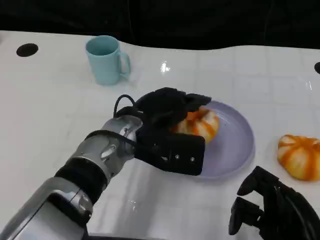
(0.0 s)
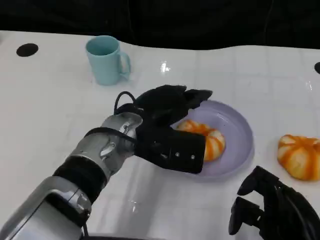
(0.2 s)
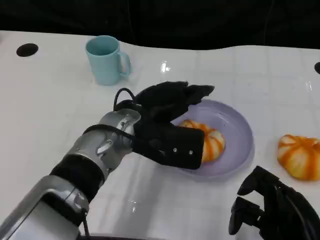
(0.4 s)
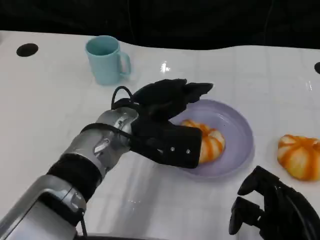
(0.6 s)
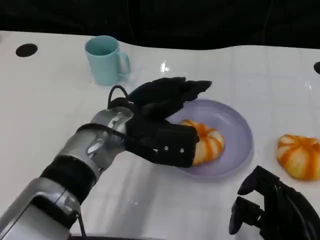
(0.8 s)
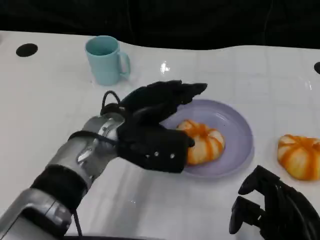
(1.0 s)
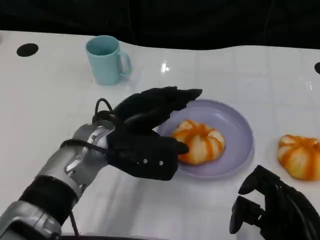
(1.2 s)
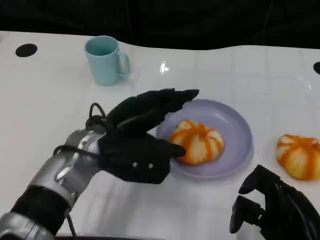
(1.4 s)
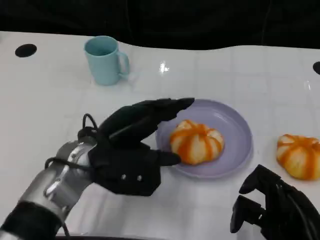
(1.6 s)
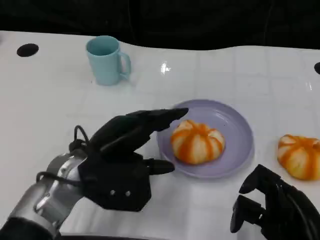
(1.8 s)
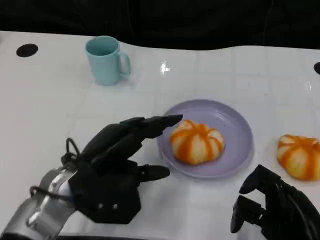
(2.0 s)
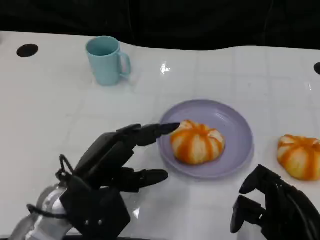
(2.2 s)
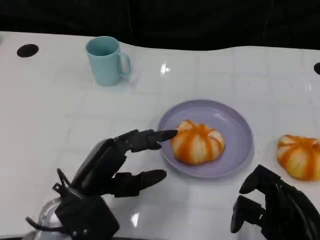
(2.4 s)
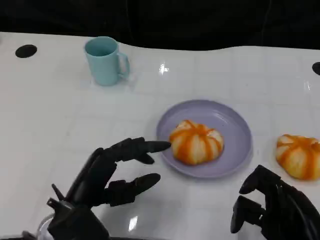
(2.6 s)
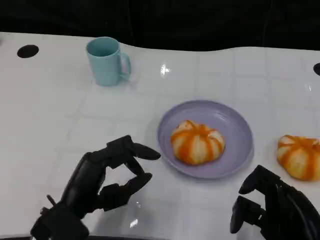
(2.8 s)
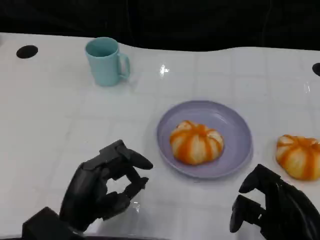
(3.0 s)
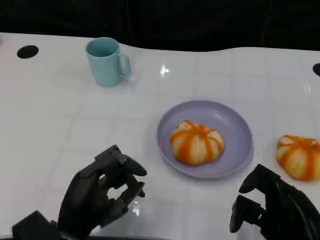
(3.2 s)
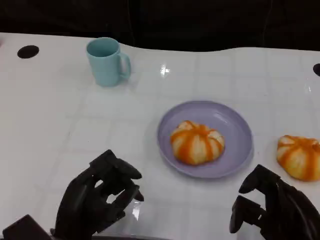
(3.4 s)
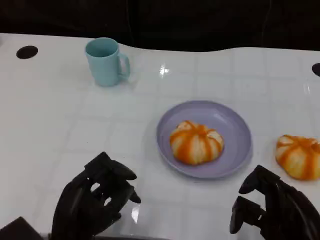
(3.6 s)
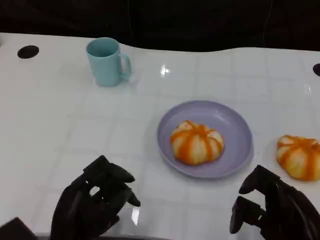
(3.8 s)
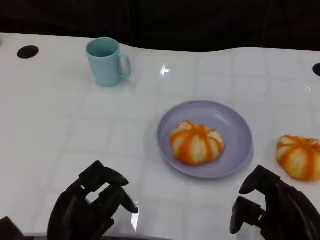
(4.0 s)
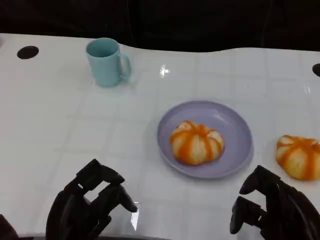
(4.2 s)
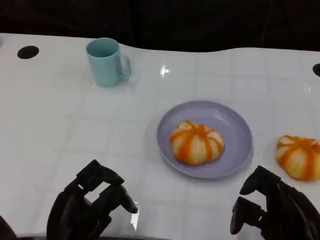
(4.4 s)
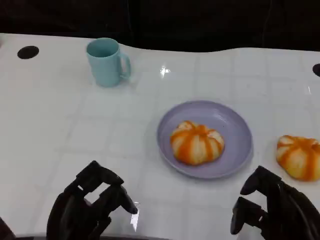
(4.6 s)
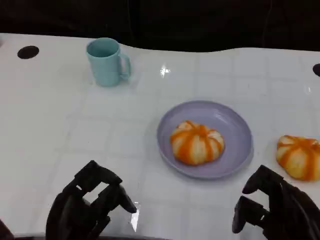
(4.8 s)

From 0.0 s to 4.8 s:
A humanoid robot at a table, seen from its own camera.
Task of the whole recording: Grasp the bread from the table and place it into the plate.
From 0.0 s to 1.6 s: The left hand heads to the left, covering roughly 5 cm.
From 1.6 s to 3.2 s: The left hand heads backward and downward, covering roughly 10 cm.

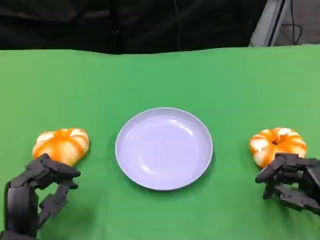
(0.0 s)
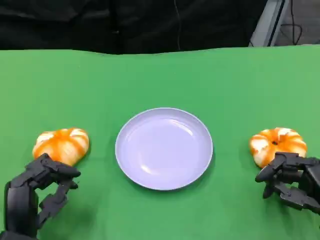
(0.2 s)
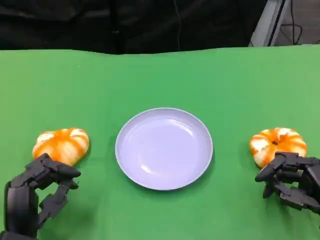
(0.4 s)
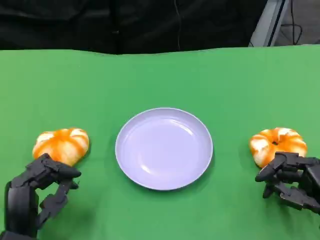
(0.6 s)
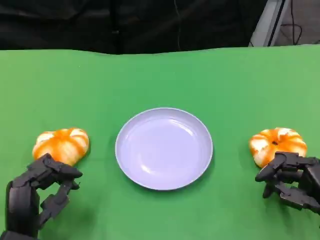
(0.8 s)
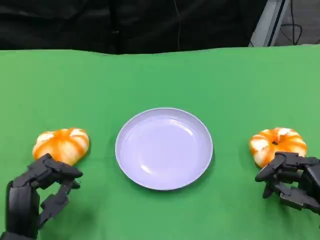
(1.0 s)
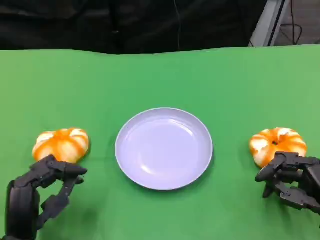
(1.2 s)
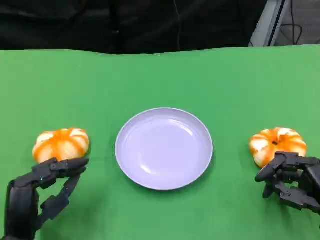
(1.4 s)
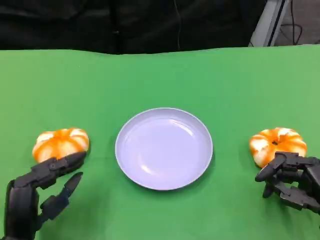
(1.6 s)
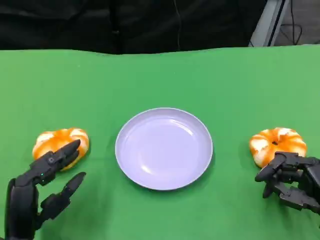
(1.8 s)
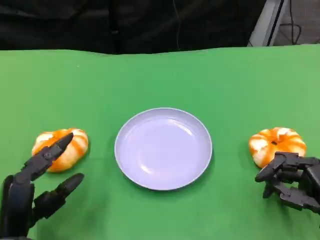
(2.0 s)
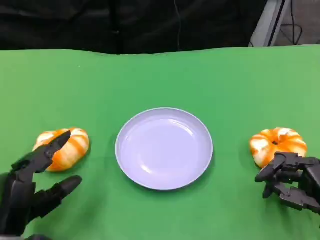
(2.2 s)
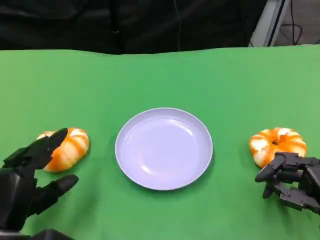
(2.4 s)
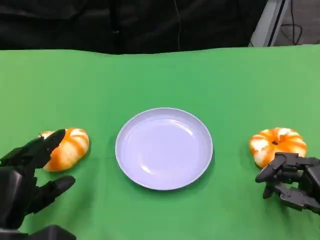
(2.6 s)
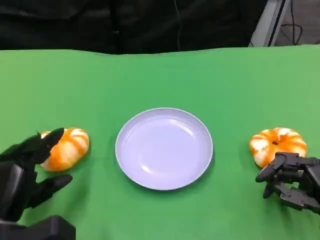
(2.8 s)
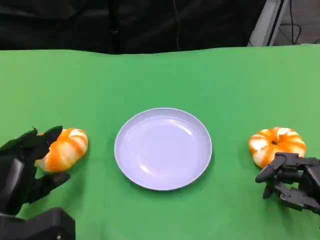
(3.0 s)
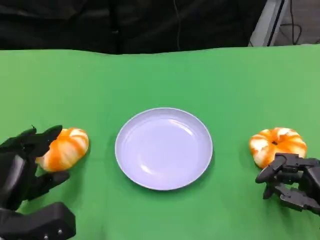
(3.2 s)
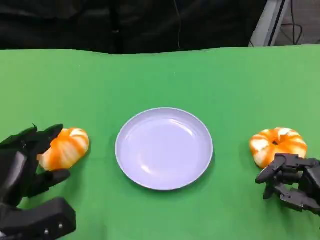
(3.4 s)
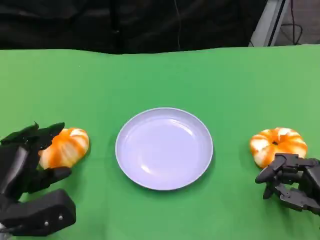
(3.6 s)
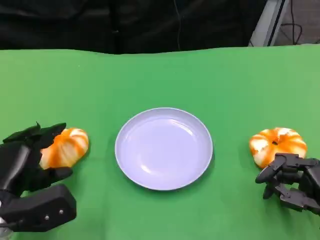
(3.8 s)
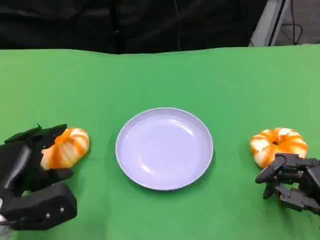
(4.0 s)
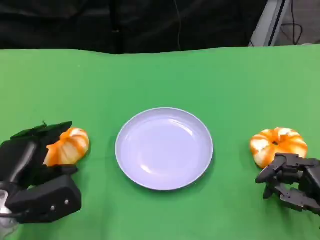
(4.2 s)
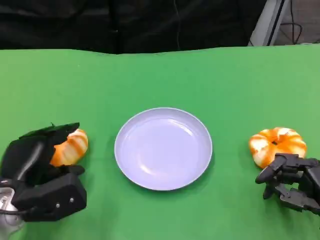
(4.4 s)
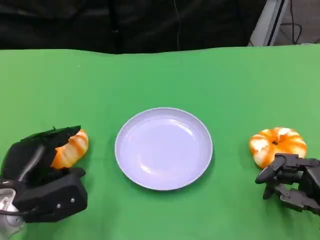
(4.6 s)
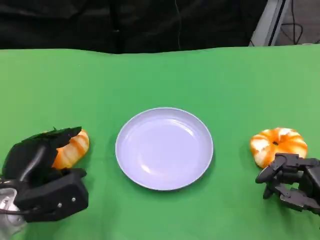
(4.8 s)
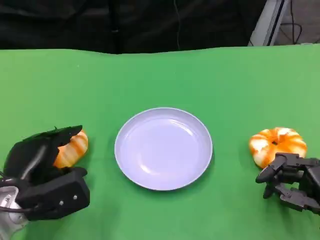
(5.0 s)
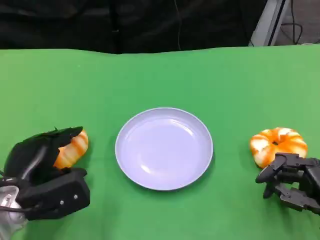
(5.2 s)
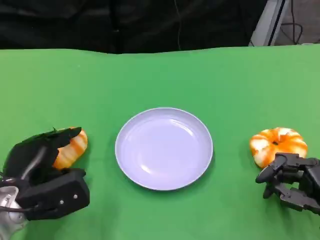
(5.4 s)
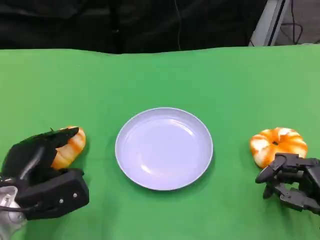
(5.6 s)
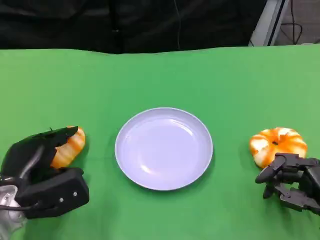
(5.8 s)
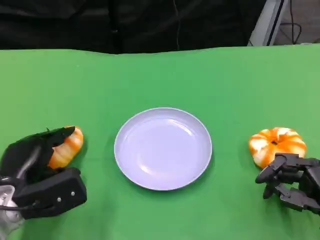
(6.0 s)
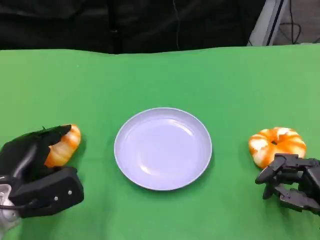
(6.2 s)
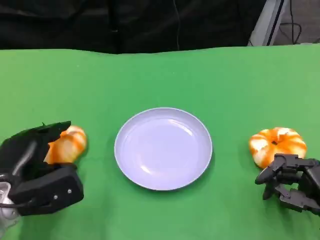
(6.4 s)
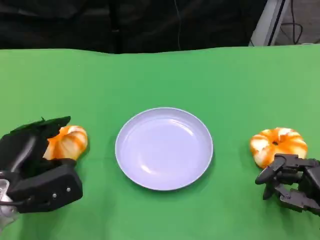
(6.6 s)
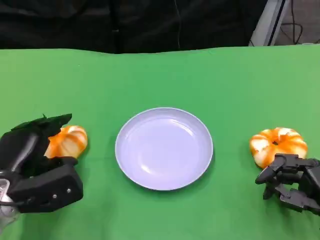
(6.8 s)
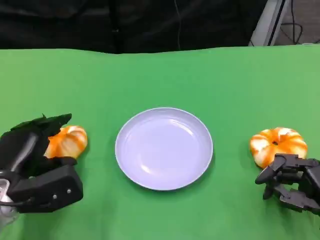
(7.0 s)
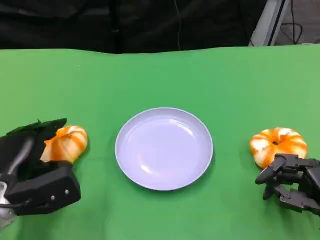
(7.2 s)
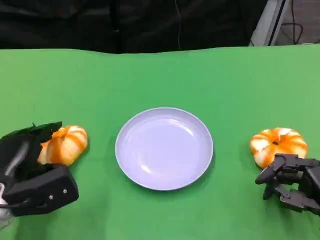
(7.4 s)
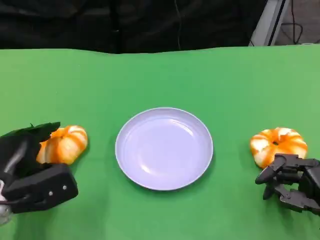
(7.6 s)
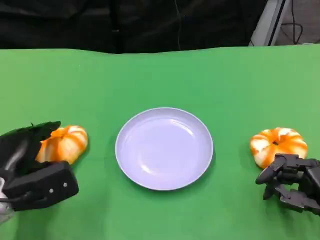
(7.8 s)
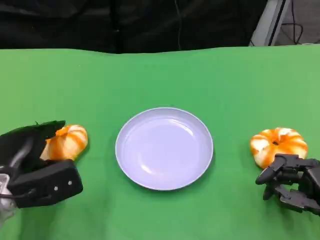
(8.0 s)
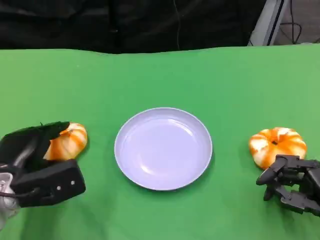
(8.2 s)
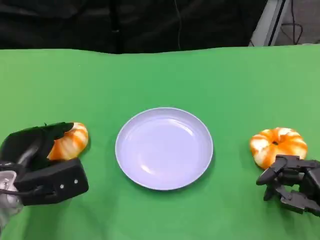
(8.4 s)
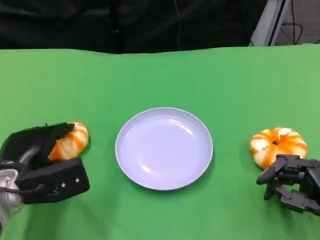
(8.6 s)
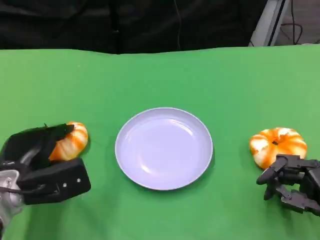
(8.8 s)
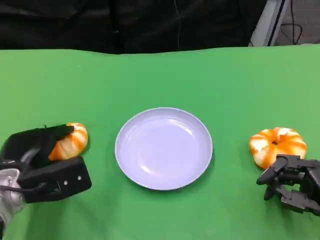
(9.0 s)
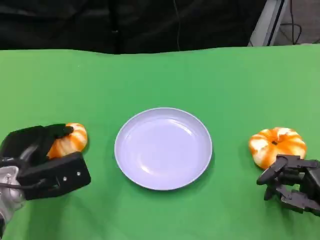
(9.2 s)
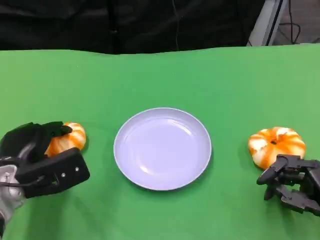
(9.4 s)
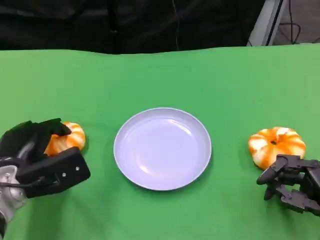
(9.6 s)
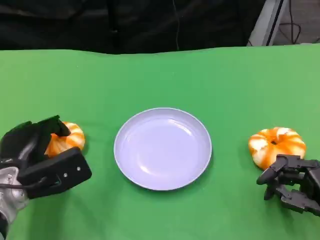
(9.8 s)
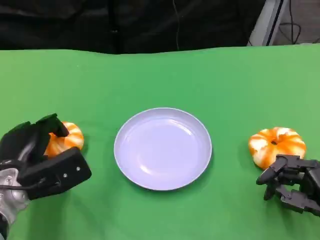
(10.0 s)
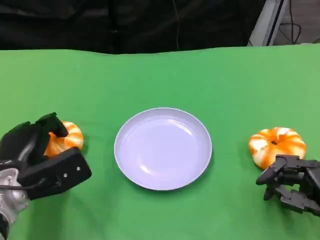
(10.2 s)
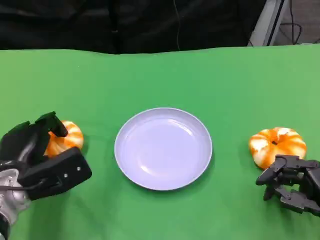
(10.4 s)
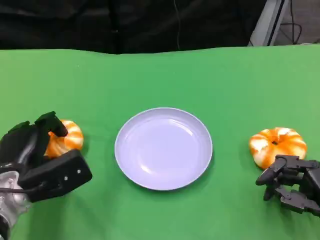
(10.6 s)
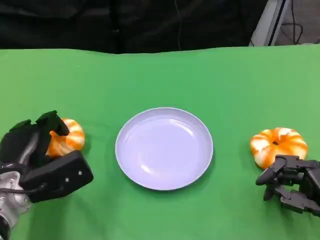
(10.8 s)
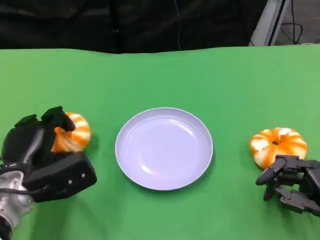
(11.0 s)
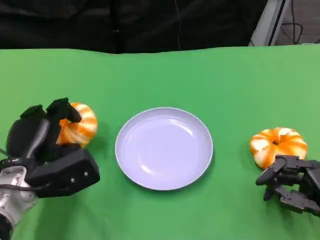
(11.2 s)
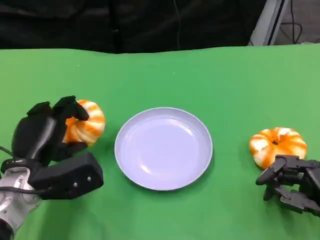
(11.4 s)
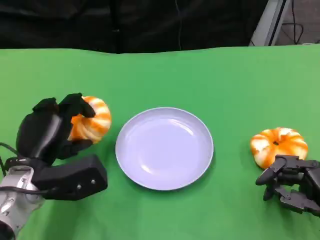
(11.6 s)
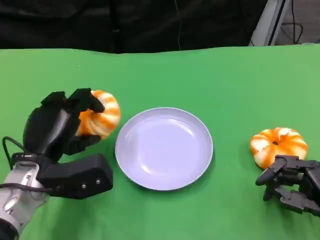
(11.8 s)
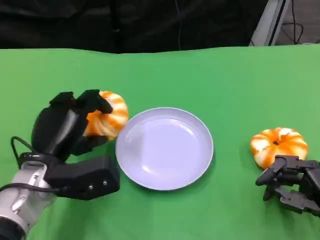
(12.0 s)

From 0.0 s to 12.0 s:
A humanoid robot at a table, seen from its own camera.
Task of the whole recording: Grasp the bread from the table and place it into the plate.
From 0.0 s to 1.6 s: The hands move only a little.
From 1.6 s to 3.0 s: The left hand ends up some 5 cm from where it was.
From 3.0 s to 6.0 s: The hands stay close to where they were, moving slightly.
From 6.0 s to 10.4 s: The hands stay close to where they were, moving slightly.
From 10.4 s to 12.0 s: The left hand ends up roughly 5 cm from where it was.

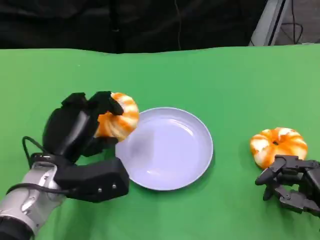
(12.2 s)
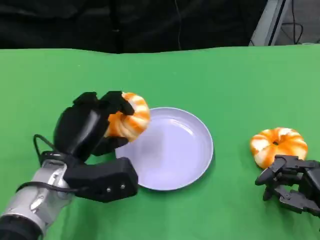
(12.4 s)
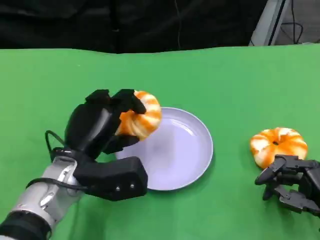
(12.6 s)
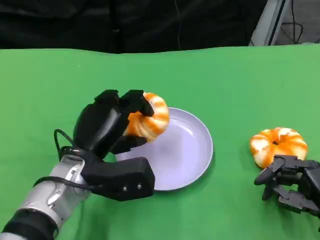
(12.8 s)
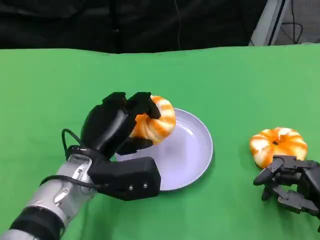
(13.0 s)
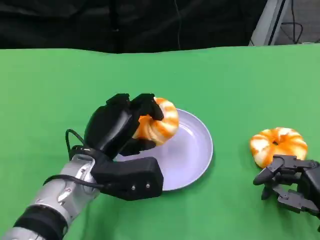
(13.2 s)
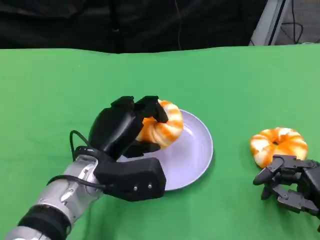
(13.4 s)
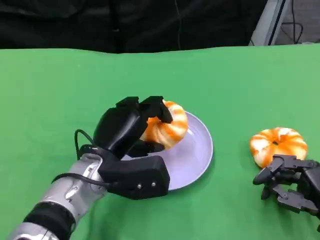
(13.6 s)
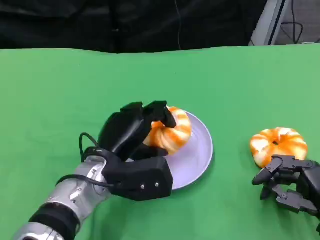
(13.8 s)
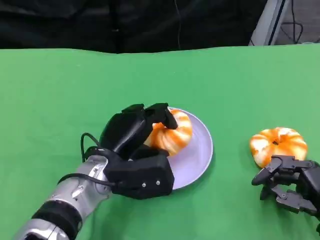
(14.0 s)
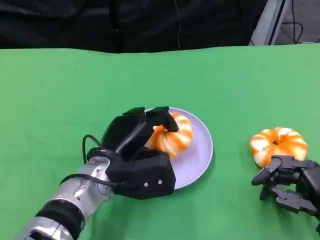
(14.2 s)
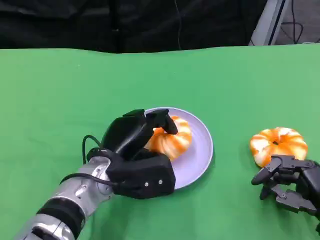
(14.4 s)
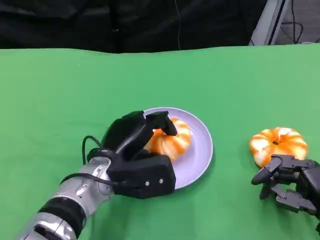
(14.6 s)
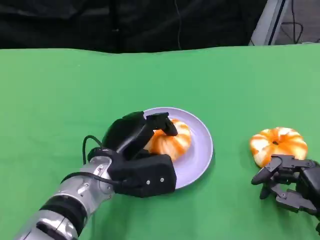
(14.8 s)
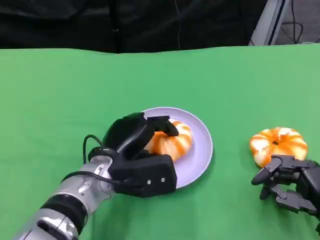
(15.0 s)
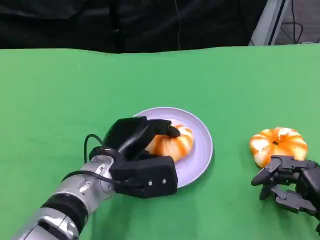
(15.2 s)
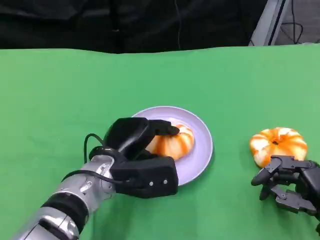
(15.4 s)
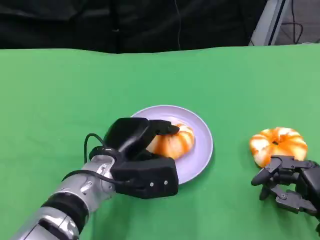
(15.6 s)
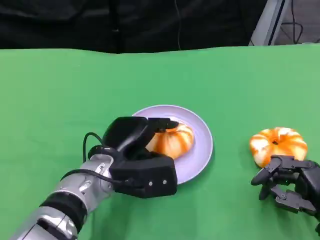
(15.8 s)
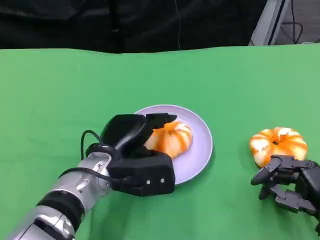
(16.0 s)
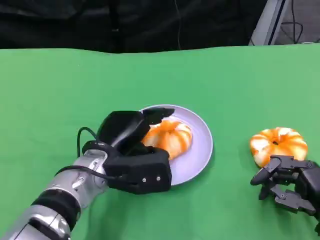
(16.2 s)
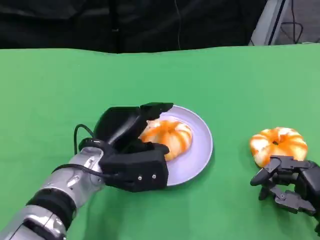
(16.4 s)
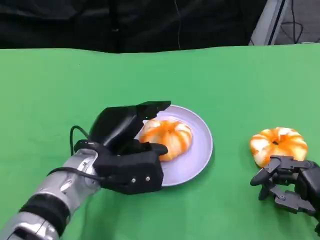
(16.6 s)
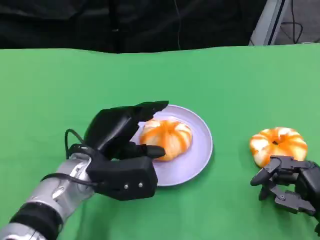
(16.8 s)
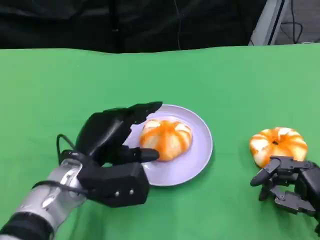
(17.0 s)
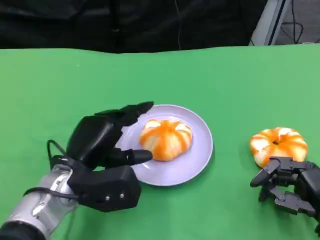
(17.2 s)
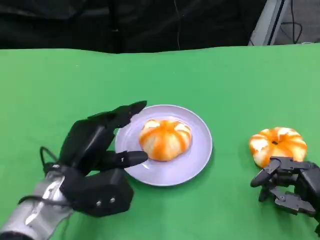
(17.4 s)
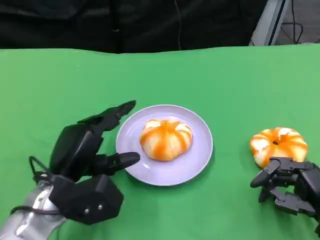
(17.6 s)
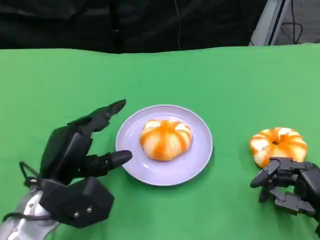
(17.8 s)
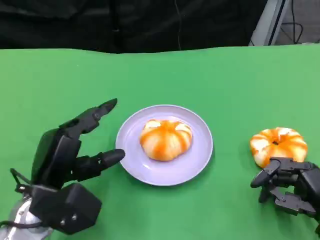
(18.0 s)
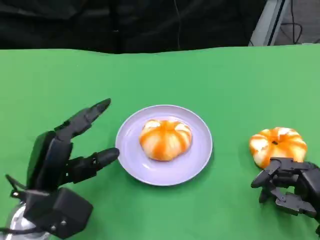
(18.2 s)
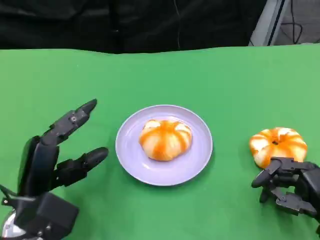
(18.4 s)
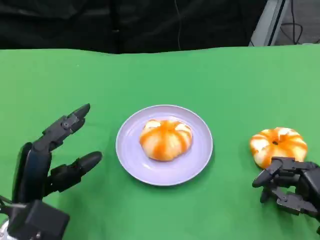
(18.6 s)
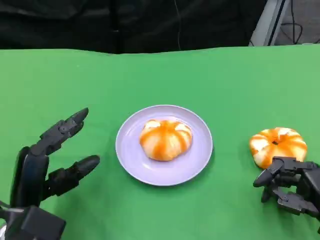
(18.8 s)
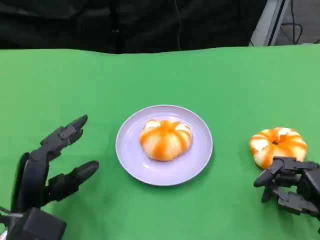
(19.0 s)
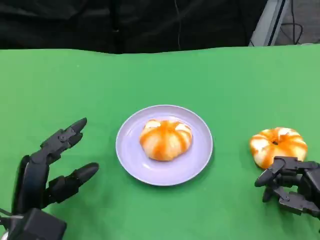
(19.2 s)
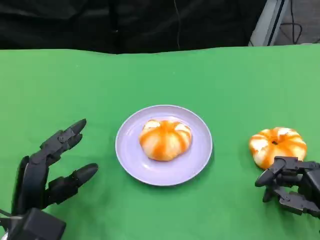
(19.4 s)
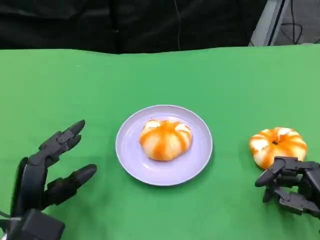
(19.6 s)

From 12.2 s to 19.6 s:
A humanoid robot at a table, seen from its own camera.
Task of the whole recording: Grasp the bread from the table and place it into the plate.
From 12.2 s to 13.6 s: The left hand shifts some 5 cm to the right.
From 13.6 s to 16.6 s: There are only small adjustments of the hands.
From 16.6 s to 18.2 s: The left hand travels to the left and backward by some 10 cm.
From 18.2 s to 19.6 s: The hands make only small movements.
